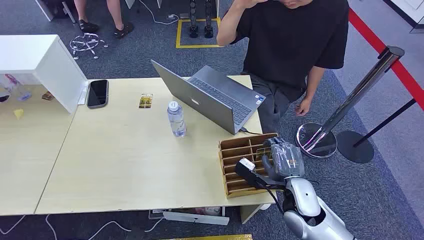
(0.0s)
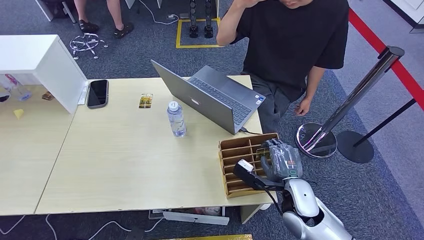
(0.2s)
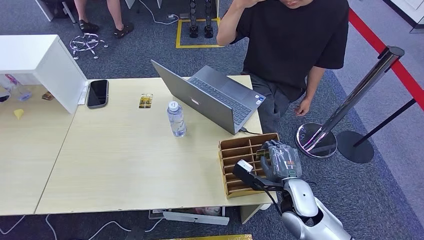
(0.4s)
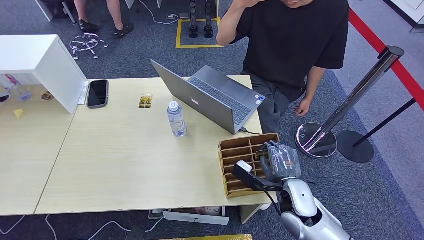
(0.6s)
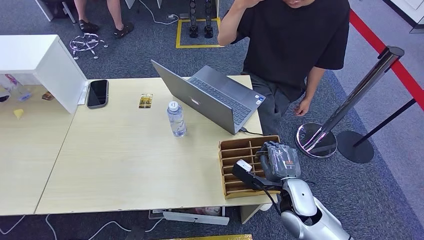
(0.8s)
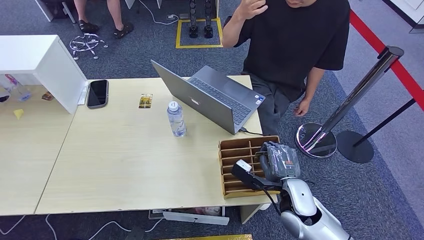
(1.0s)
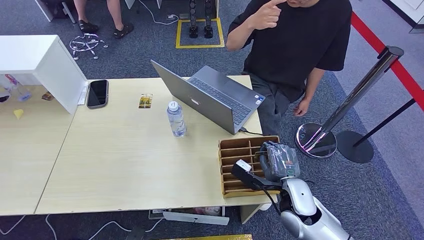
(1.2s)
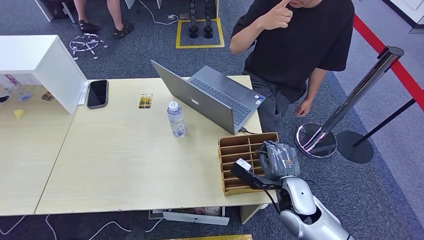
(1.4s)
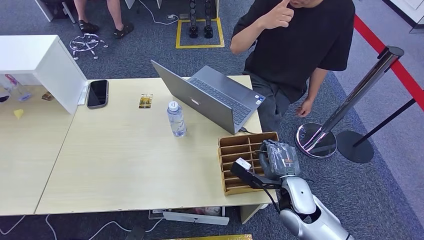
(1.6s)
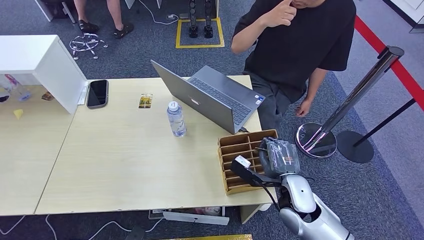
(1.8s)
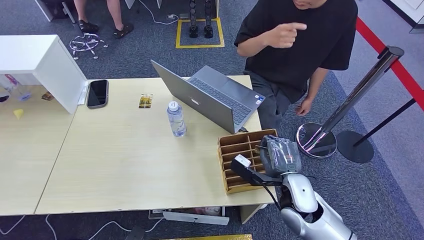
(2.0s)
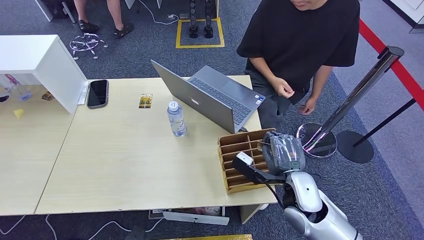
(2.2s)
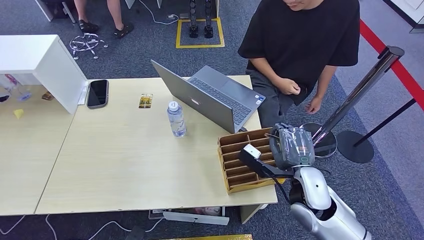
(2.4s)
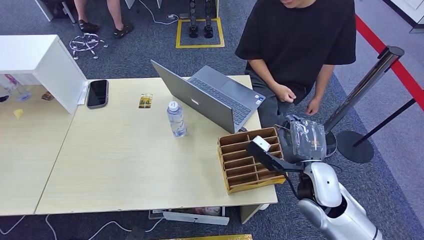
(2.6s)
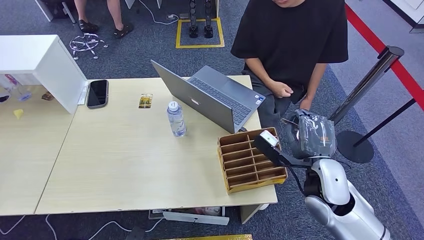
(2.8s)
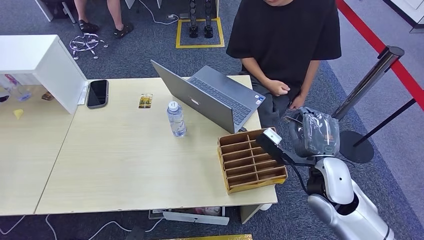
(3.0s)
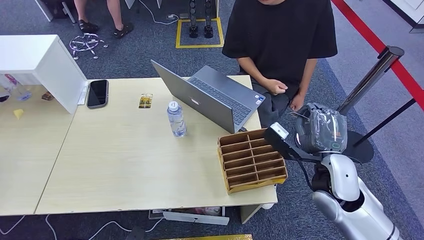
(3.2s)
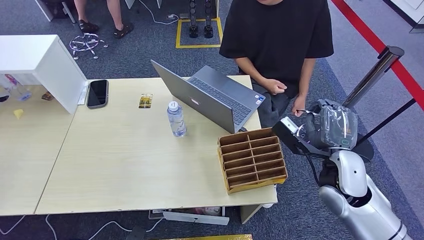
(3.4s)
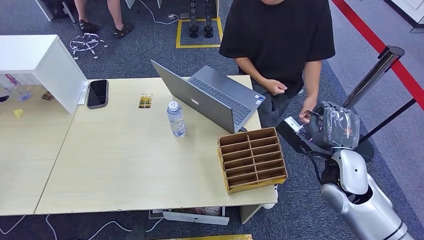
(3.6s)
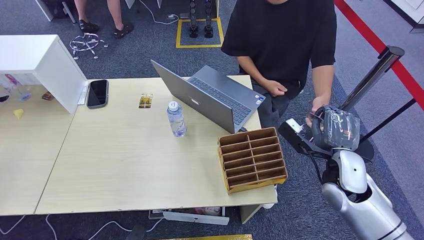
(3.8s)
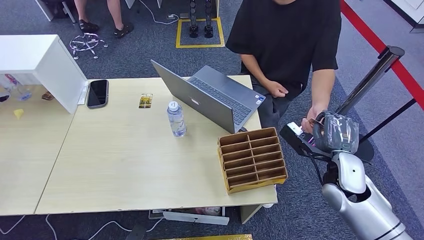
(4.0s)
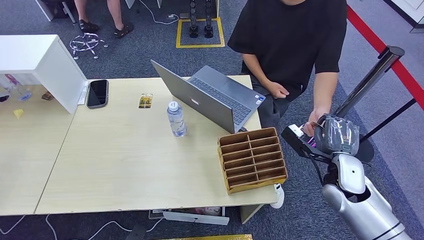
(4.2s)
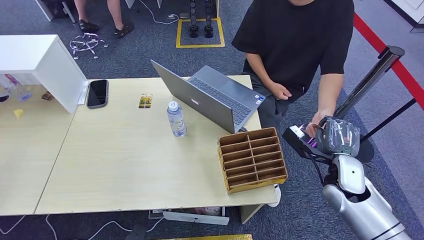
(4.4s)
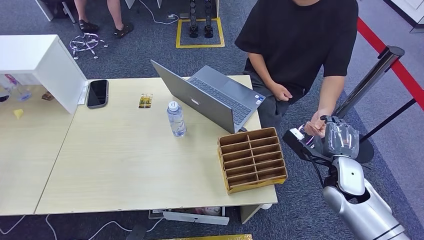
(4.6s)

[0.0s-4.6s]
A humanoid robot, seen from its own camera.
Step, 0.0s to 3.4s: Pick up the key card from the card box.
Step, 3.6s to 4.6s: Hand the key card to the target.
1.6s to 3.0s: The right hand travels upward by about 10 cm.
3.0s to 4.6s: The right hand heads to the right and downward, covering some 10 cm.

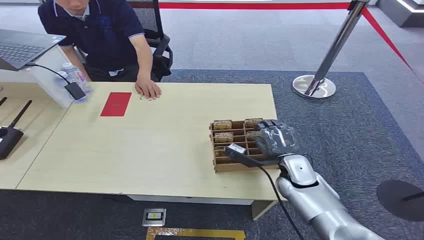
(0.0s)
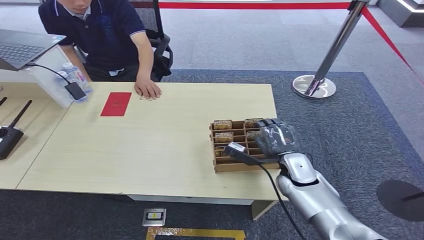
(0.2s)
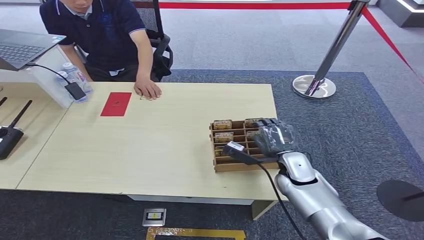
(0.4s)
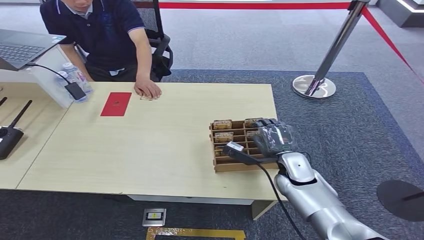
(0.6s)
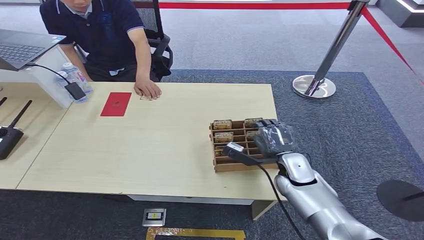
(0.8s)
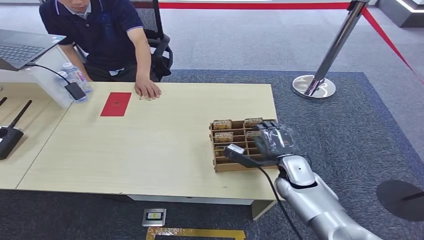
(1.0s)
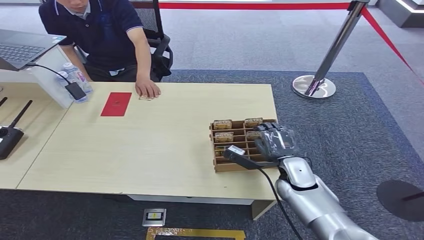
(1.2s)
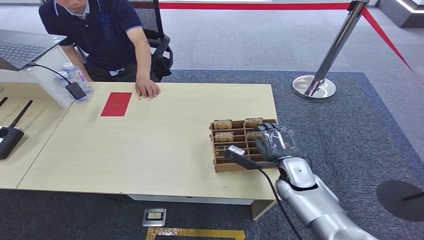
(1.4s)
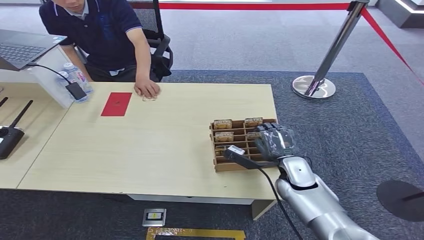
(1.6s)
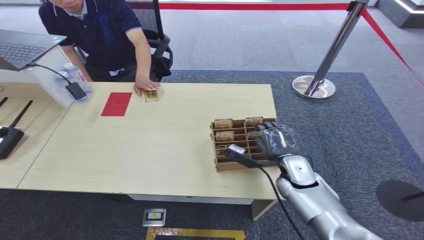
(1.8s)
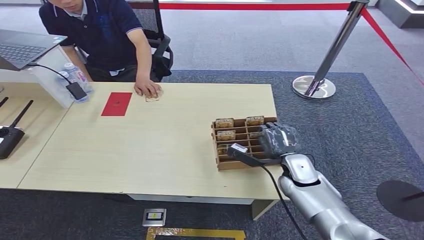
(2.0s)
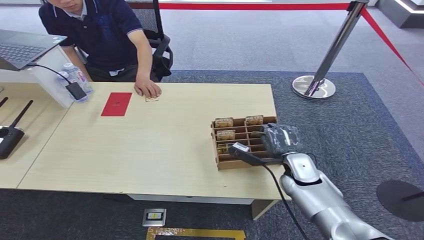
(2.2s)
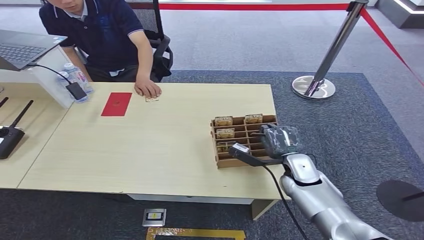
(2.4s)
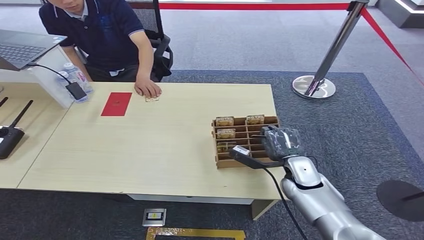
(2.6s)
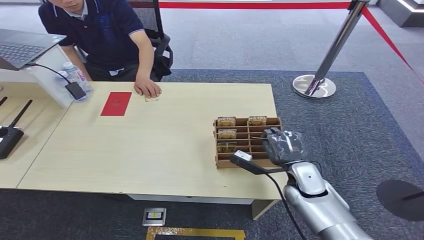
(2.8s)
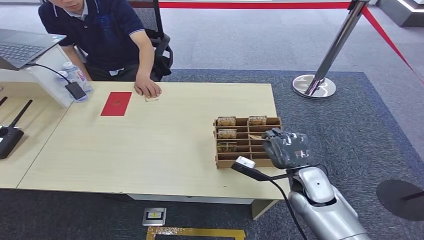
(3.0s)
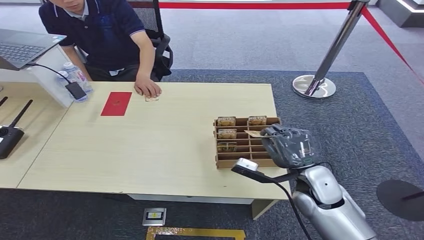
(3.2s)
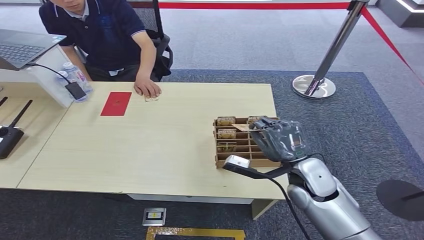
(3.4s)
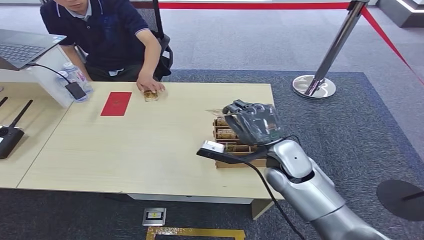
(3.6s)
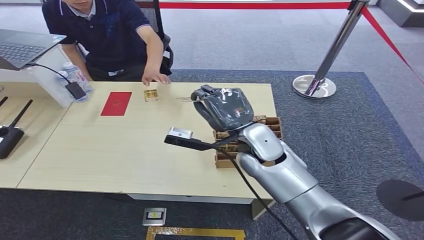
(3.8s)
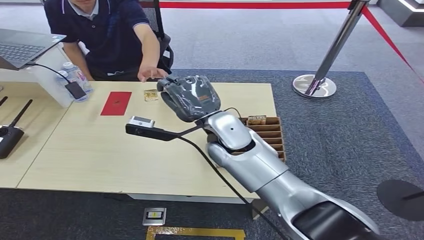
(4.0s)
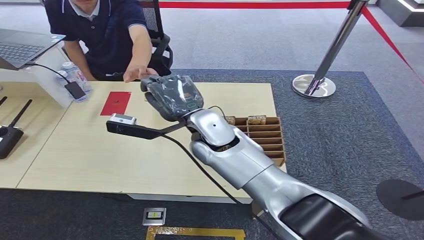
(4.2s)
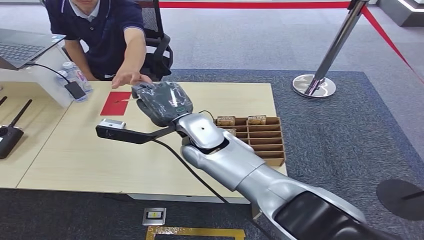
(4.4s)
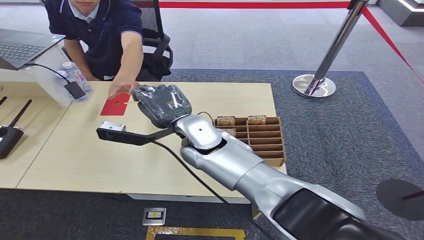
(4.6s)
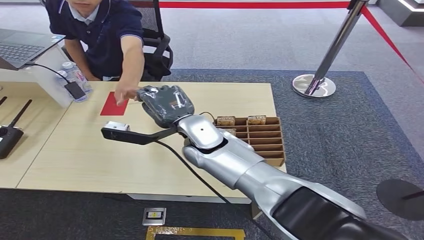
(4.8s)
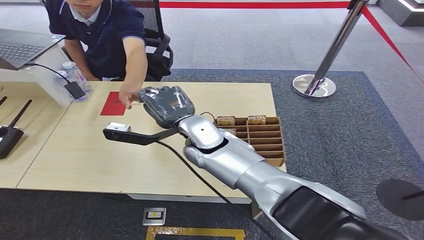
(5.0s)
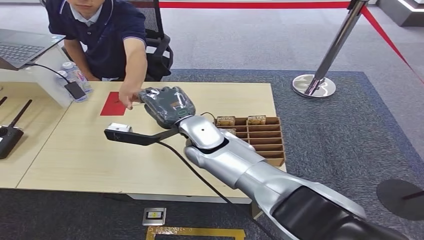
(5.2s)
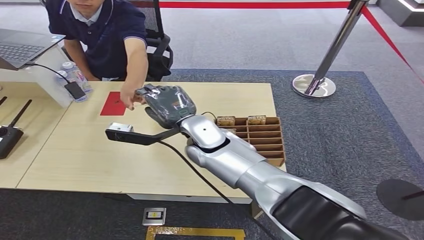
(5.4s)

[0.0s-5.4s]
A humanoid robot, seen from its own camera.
Step, 0.0s to 3.6s: Pick up the key card from the card box.
Step, 3.8s to 5.4s: Hand the key card to the target.
1.4s to 2.8s: There are only small adjustments of the hands.
2.8s to 4.0s: The right hand shifts some 25 cm to the left and upward.
4.0s to 5.4s: The right hand heads to the left, covering roughly 5 cm.
